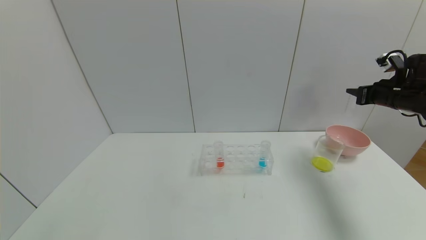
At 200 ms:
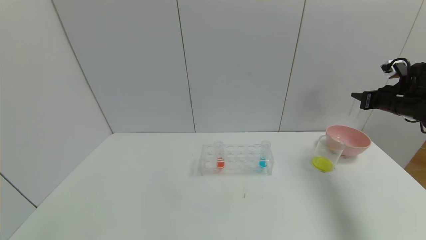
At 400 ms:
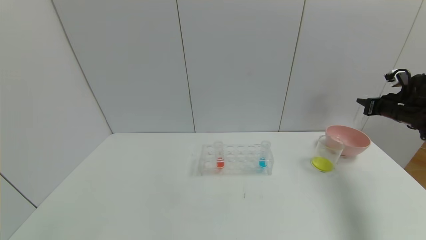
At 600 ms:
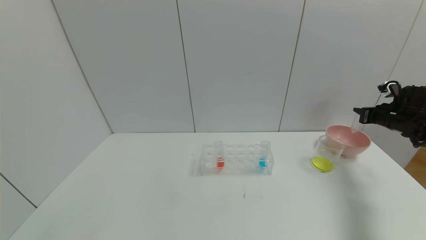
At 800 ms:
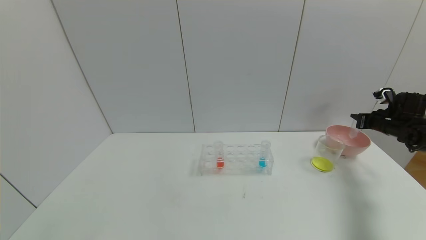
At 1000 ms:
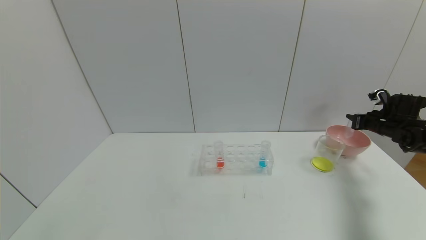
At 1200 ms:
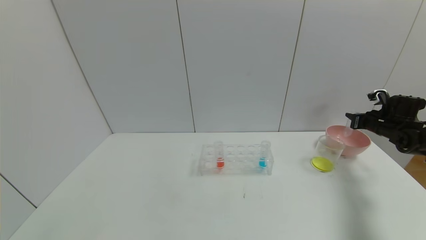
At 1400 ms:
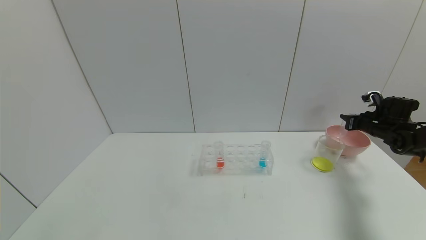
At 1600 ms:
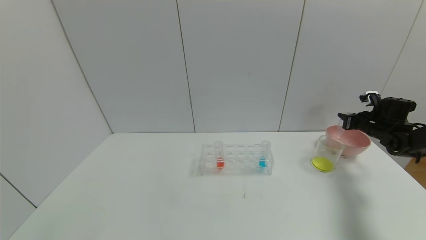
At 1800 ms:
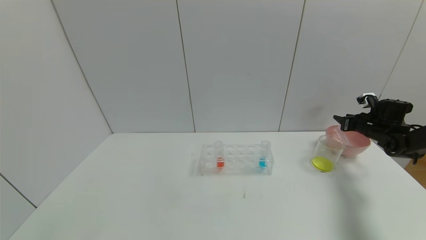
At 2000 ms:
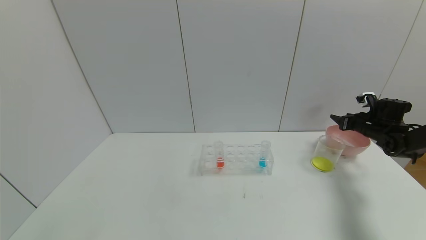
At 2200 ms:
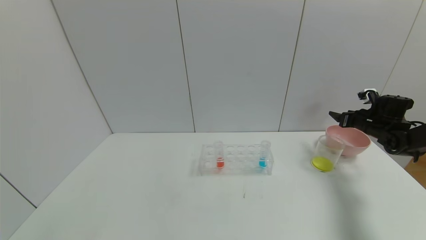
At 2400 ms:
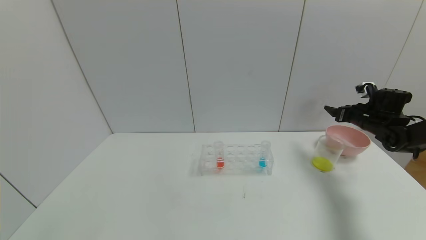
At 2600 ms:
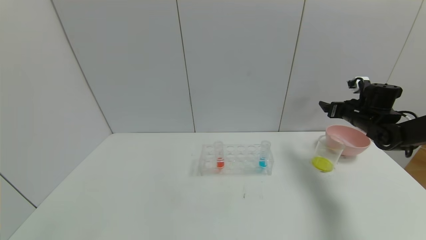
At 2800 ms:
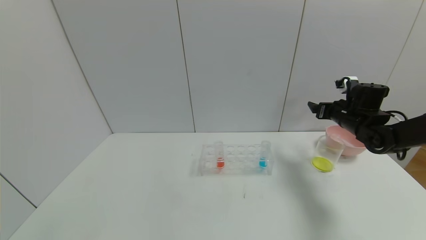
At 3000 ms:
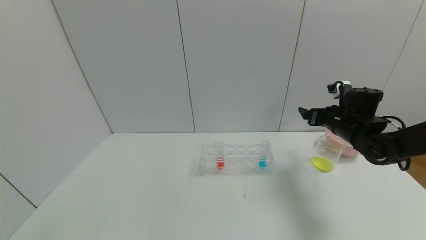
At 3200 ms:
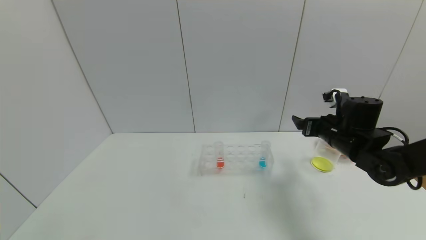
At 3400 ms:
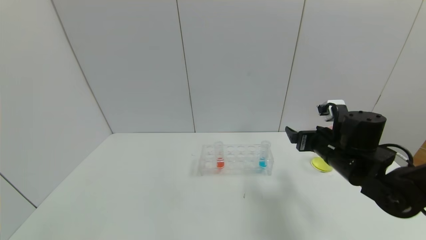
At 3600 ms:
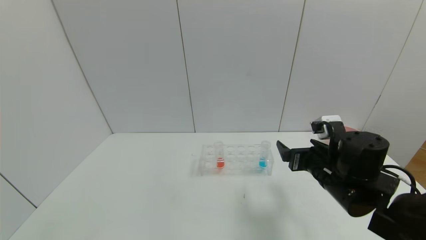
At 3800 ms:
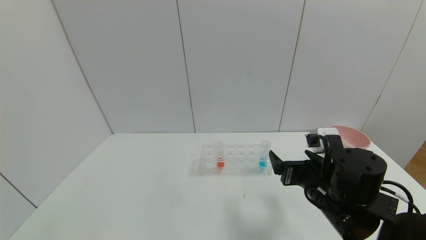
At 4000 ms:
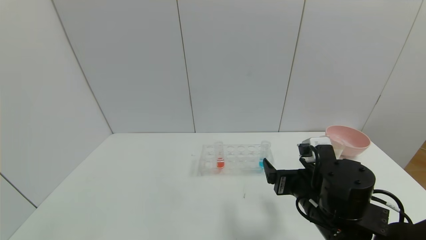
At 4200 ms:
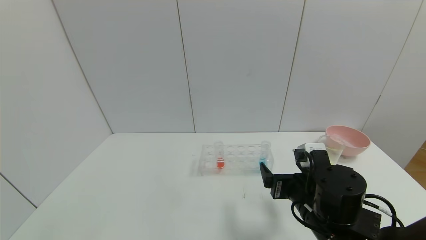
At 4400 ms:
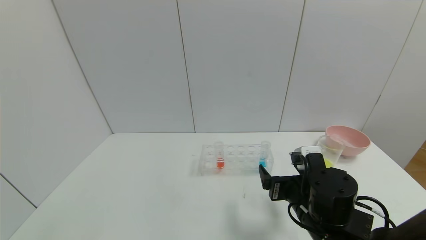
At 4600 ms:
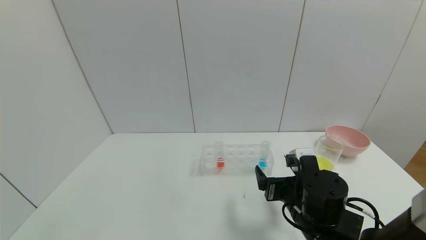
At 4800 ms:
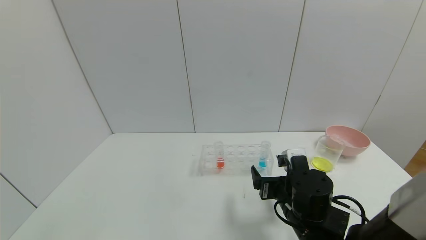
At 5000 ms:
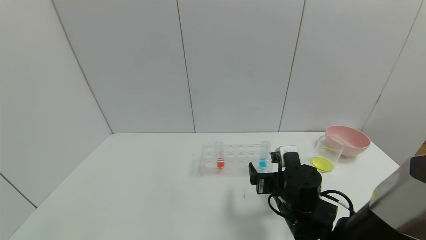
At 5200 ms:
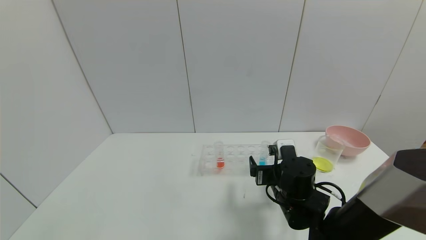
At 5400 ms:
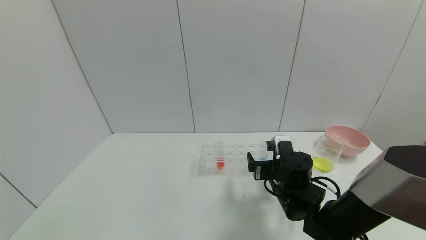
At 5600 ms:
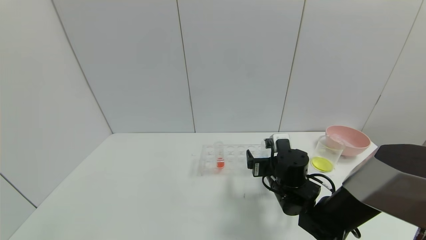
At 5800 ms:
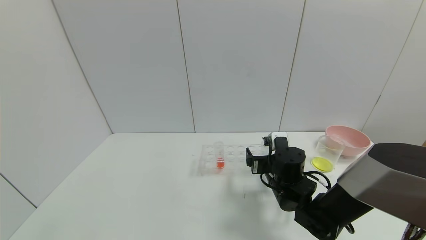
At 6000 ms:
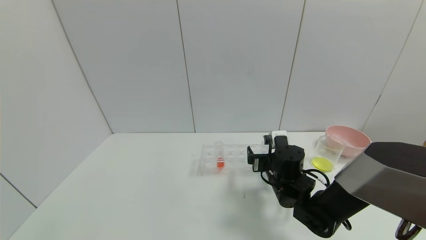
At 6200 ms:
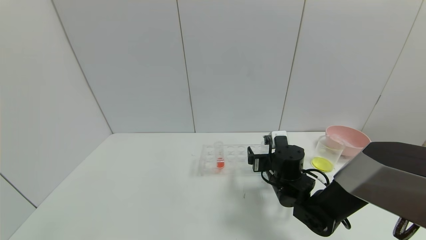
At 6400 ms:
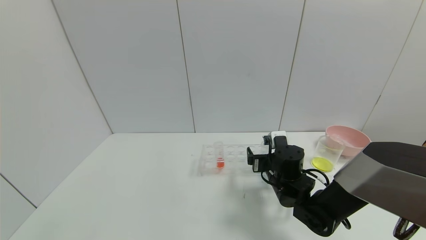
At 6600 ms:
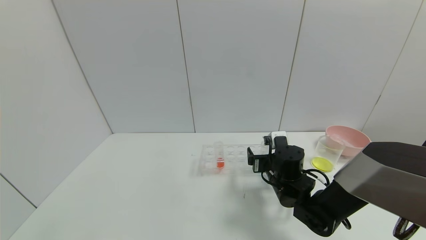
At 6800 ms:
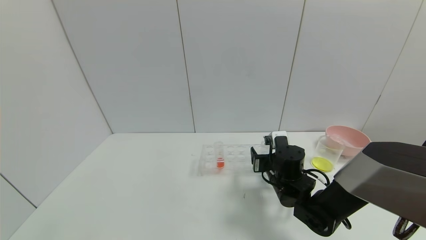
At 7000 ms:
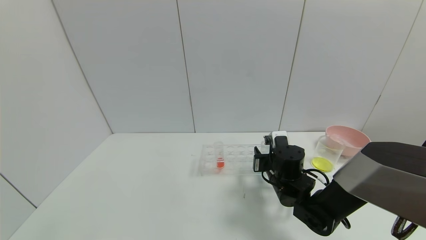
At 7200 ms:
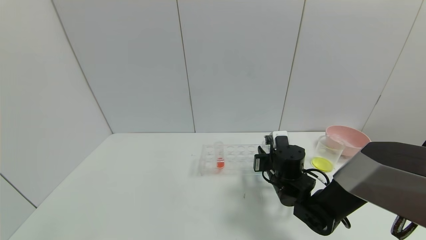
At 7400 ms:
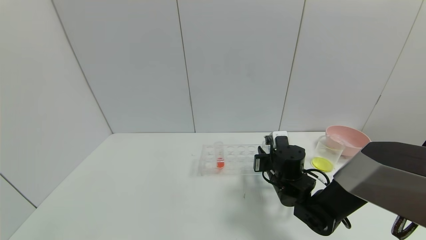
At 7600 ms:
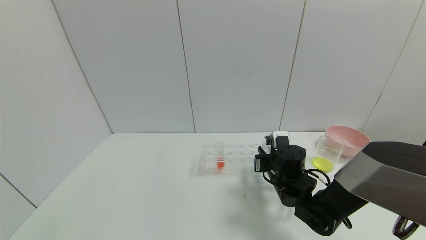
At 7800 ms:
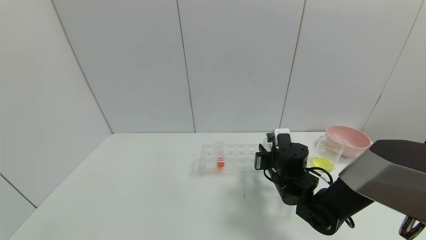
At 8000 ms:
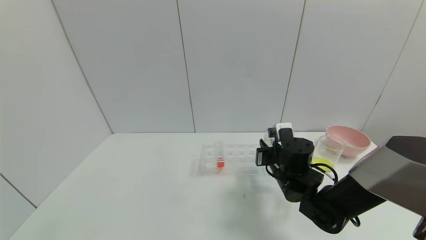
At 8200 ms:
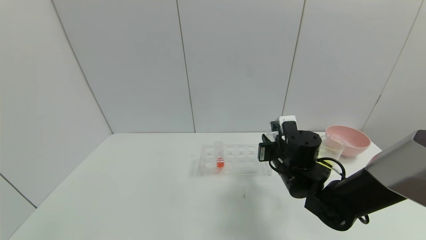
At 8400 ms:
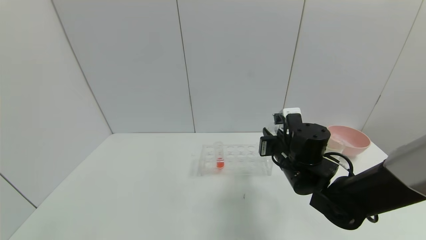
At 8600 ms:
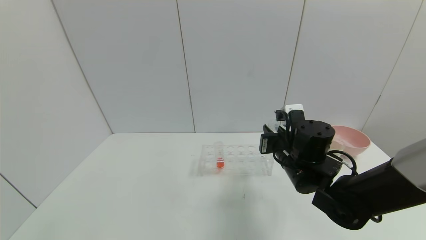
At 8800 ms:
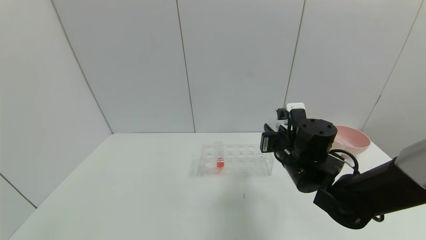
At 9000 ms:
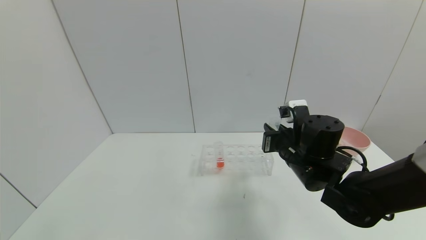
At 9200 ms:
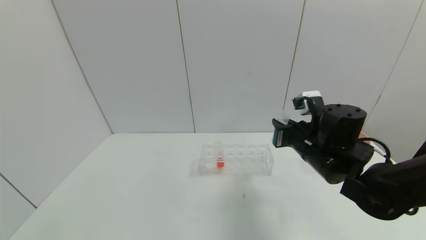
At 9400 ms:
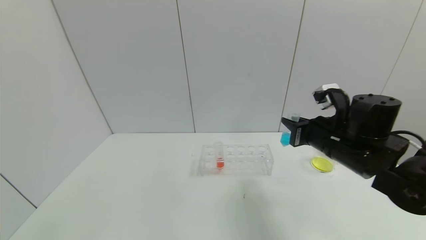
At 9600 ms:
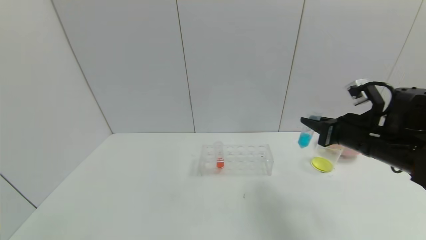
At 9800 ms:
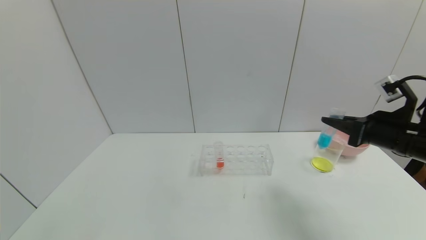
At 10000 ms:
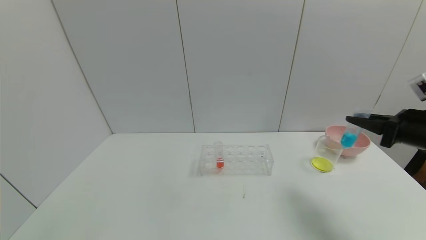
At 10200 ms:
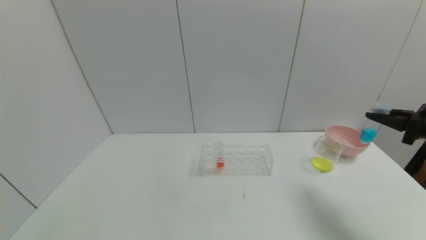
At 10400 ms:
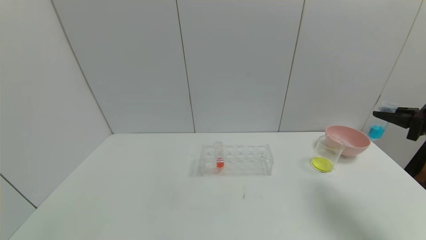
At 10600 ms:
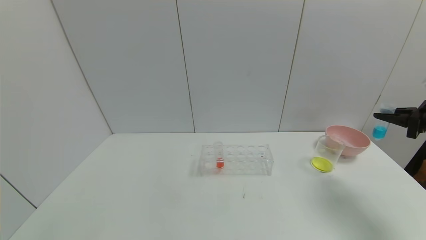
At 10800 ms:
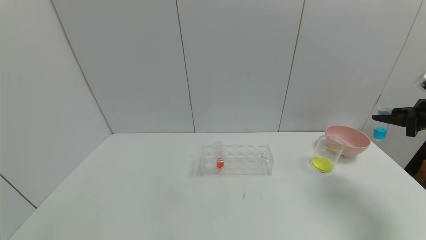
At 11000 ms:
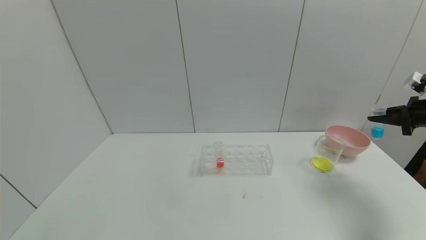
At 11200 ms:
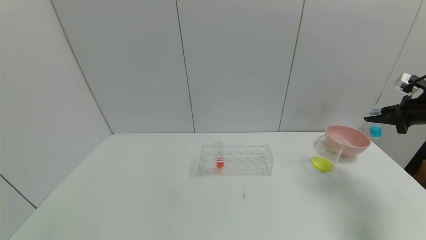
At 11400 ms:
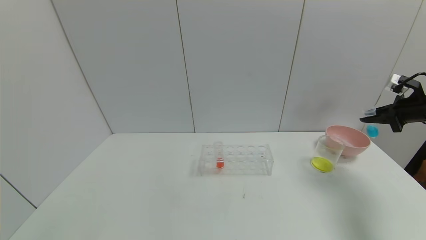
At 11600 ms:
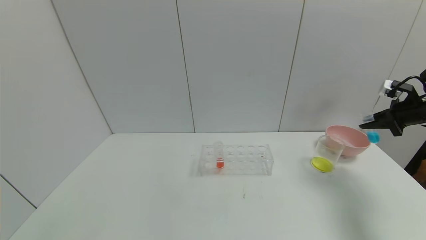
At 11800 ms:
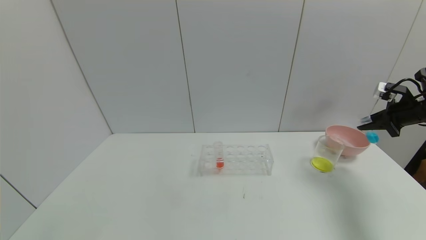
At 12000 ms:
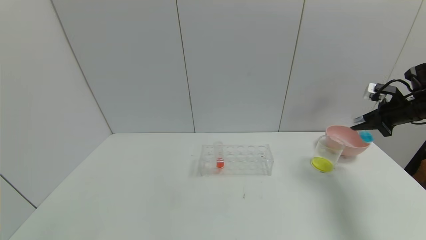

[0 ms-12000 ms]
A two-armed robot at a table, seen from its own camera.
Task of the whole recording: pick up the test tube with yellow pigment and the test tube with blue pigment by grippers and pour them into the beaker.
Step, 0 ms to 2200 ms: Place the test tube into the bowl with the right gripper.
Step, 2400 ms to 7400 ms: Grasp the blue reagent with the right gripper.
0 ms to 1600 ms: The right gripper shifts roughly 15 cm downward and forward.
1600 ms to 3000 ms: The right gripper goes roughly 15 cm to the left, and opens.
3000 ms to 4400 ms: The right gripper shifts roughly 25 cm backward and to the left.
4400 ms to 6000 ms: The right gripper is displaced forward by about 10 cm.
6000 ms to 7600 ms: The right gripper closes its fingers.
7600 ms to 9000 ms: The right gripper goes about 10 cm upward.
9000 ms to 10400 ms: The right gripper travels to the right by approximately 30 cm.
10400 ms to 12000 ms: The right gripper shifts roughly 10 cm forward.

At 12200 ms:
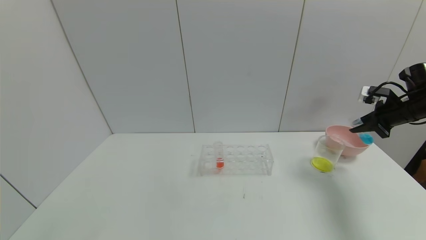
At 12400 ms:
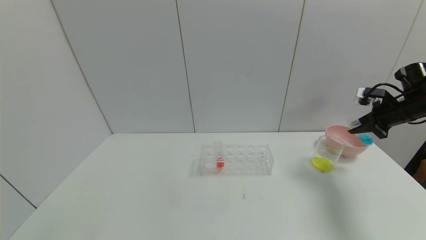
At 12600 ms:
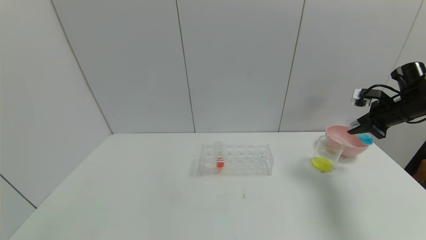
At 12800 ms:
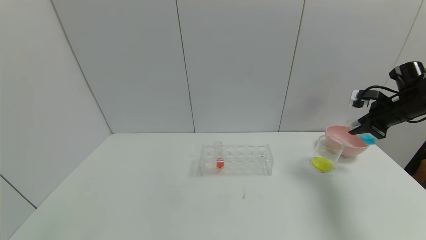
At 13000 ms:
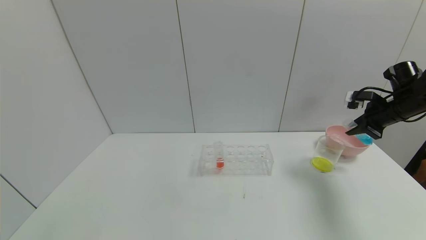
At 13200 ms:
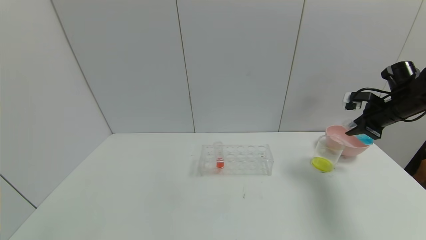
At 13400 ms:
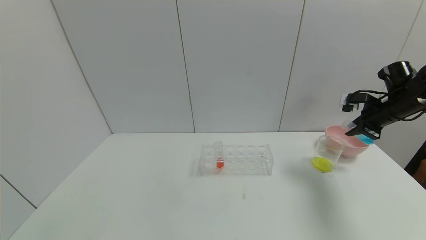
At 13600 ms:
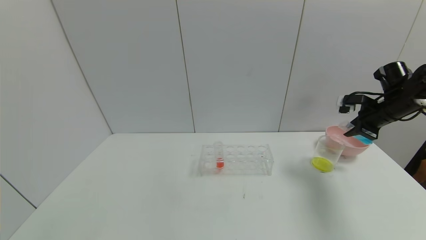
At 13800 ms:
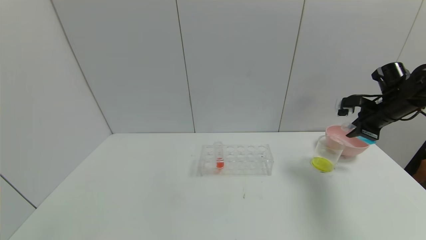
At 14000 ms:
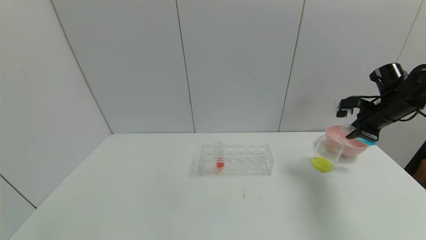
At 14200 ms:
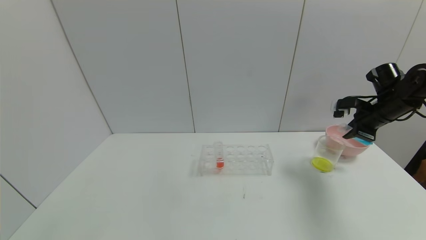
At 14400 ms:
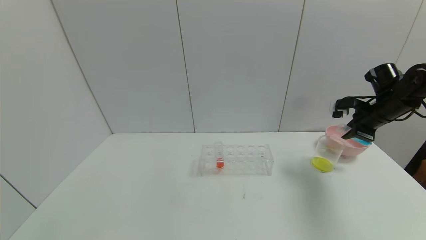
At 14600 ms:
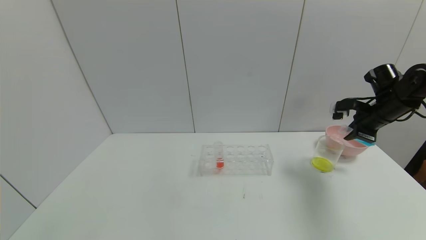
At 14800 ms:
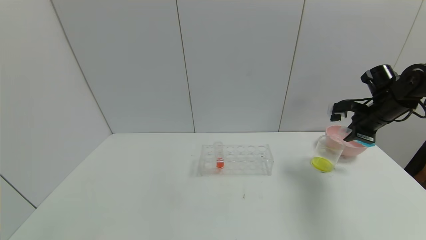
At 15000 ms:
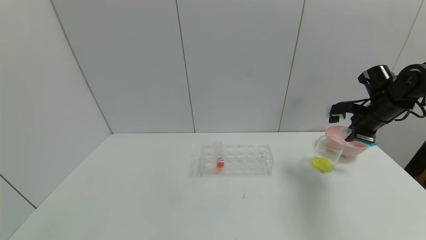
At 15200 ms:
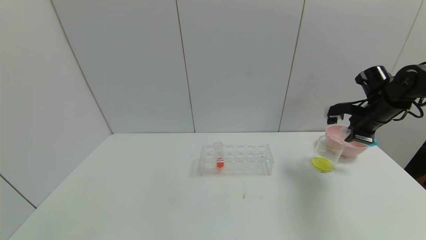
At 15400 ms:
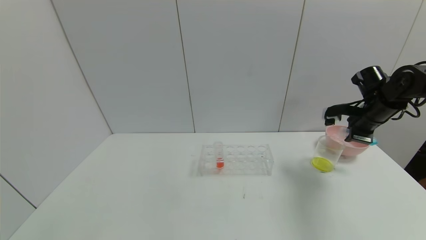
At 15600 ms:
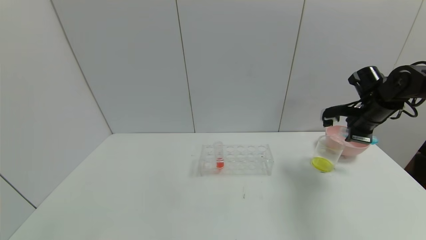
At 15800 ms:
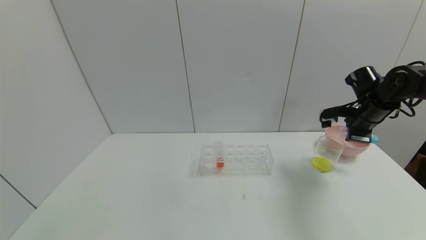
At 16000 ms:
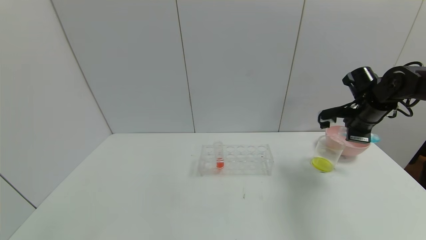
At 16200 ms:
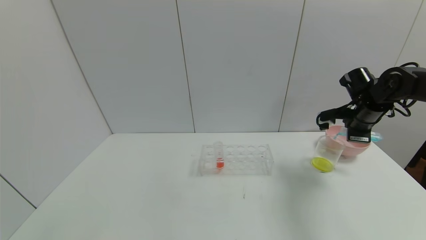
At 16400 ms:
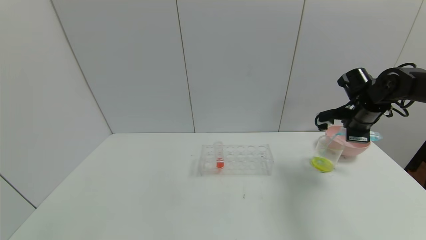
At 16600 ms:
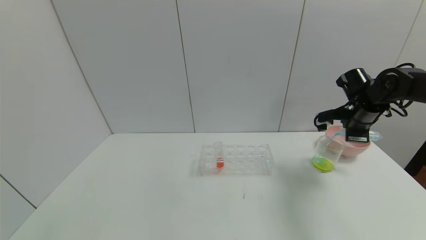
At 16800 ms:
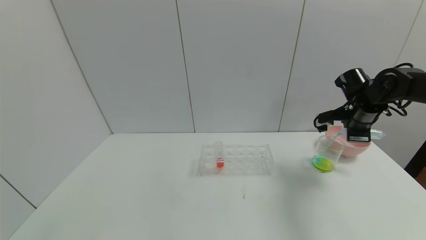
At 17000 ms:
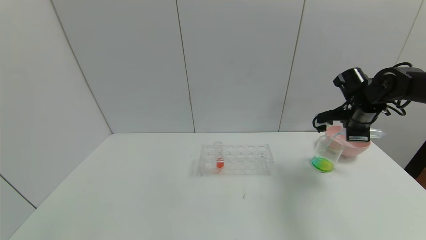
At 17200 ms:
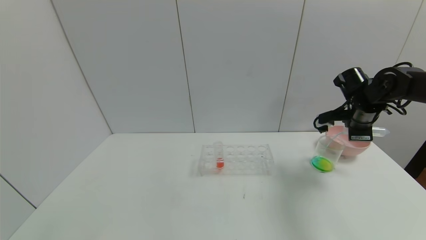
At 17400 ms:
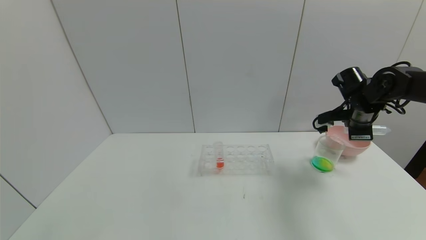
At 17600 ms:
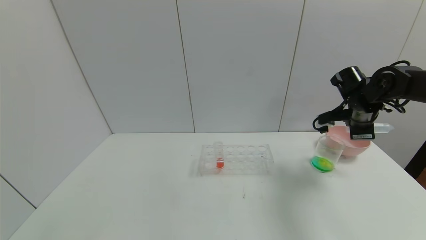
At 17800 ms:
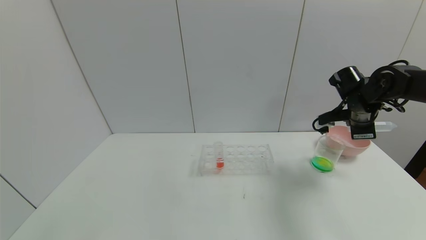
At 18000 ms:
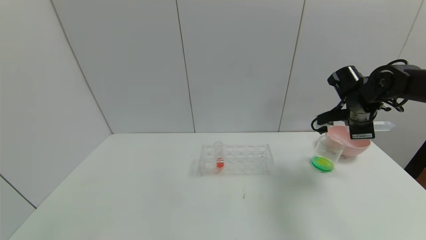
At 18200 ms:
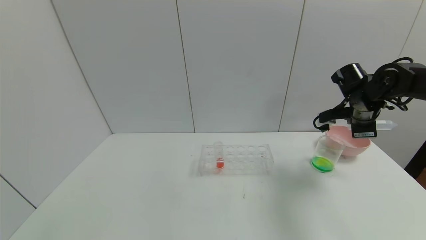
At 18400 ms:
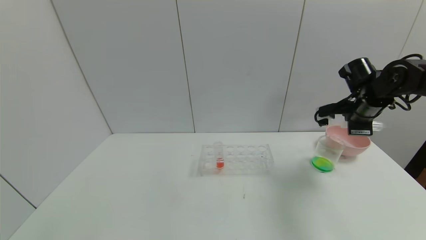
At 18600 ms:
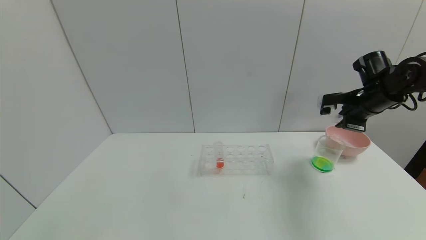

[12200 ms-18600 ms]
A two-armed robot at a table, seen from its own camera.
Task of the whole recording: pick up the test tube with yellow pigment and the test tube with blue pigment by grippers and pour them into the beaker.
Step, 12200 ms to 18000 ms: Pour the blue reagent into the graduated cylinder with the right gripper.
13800 ms to 15400 ms: The grippers stay close to where they were, moving slightly.
15400 ms to 17000 ms: The grippers make only small movements.
